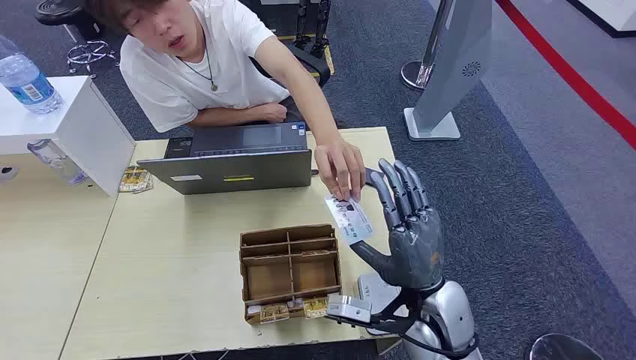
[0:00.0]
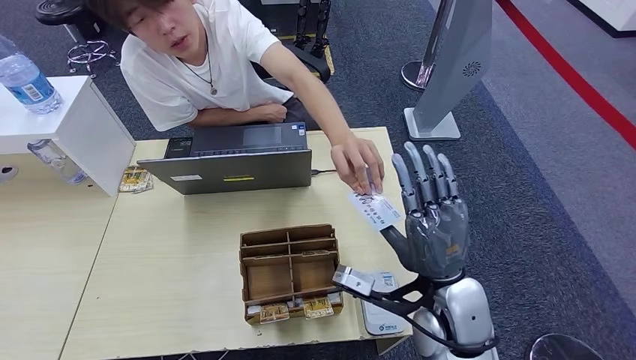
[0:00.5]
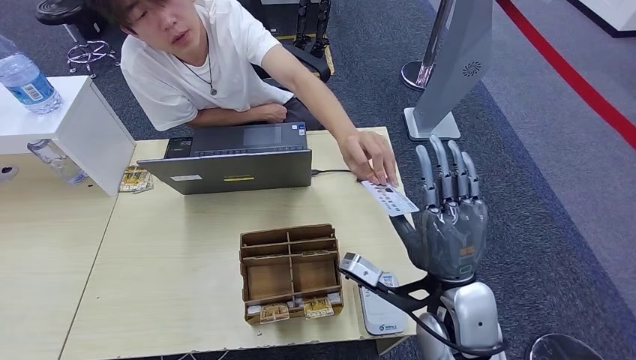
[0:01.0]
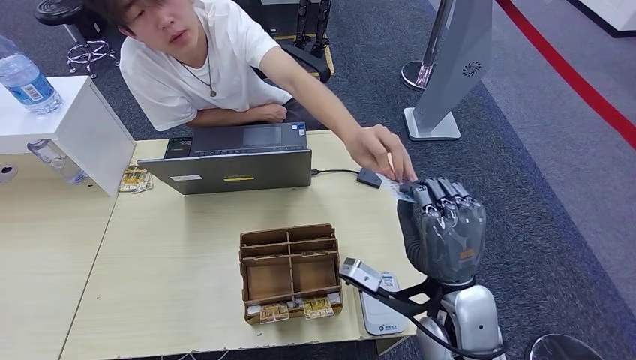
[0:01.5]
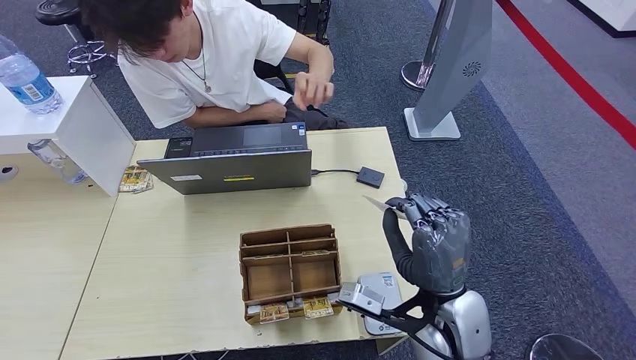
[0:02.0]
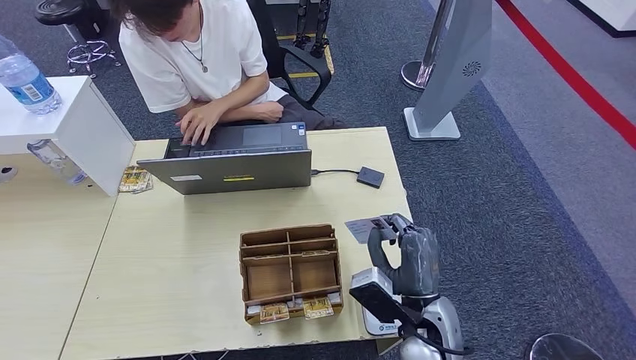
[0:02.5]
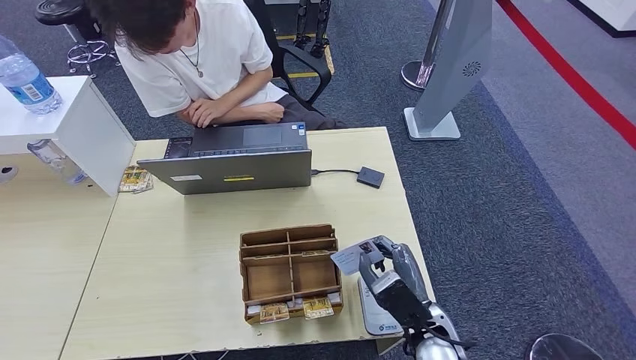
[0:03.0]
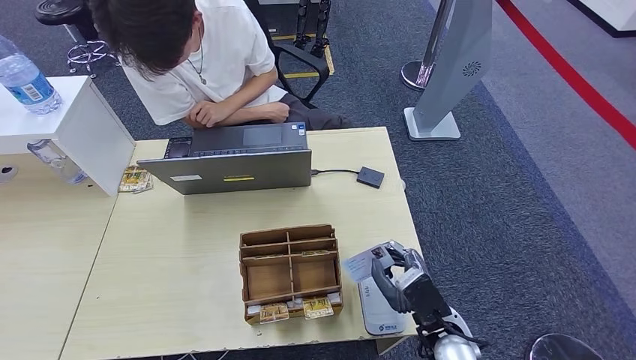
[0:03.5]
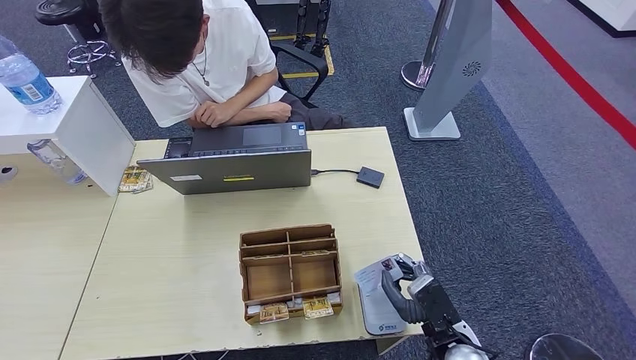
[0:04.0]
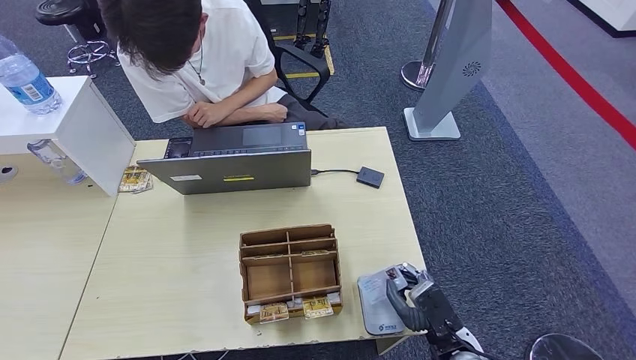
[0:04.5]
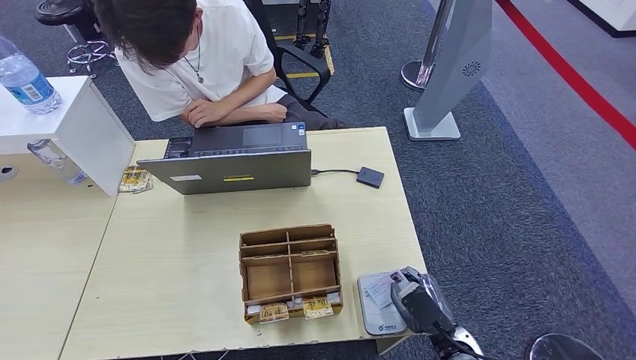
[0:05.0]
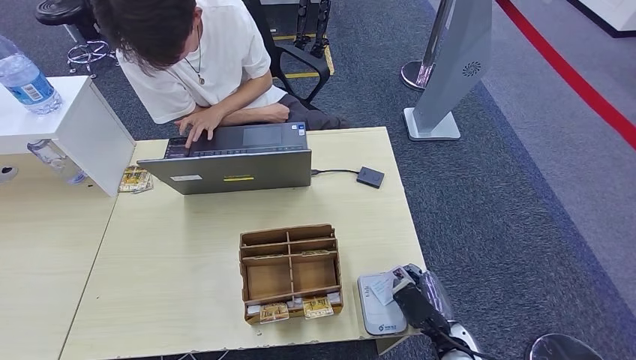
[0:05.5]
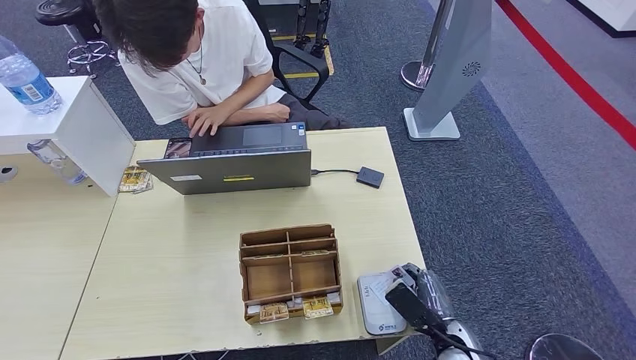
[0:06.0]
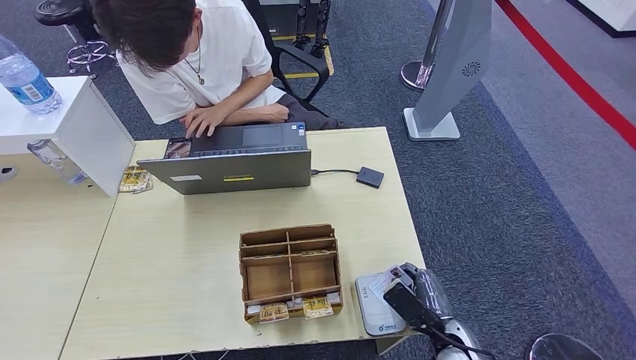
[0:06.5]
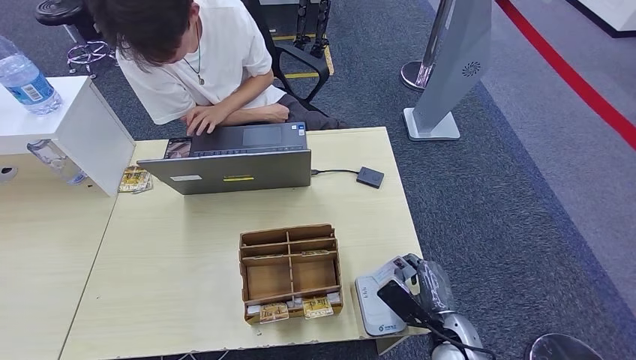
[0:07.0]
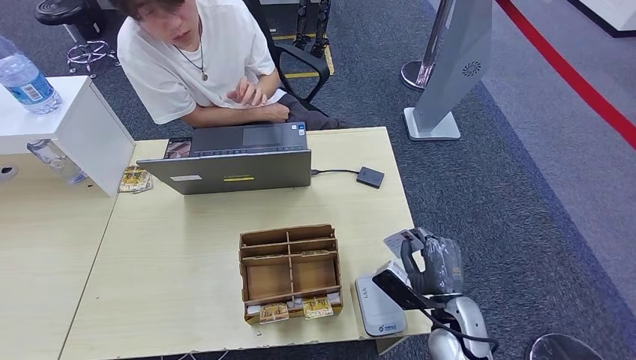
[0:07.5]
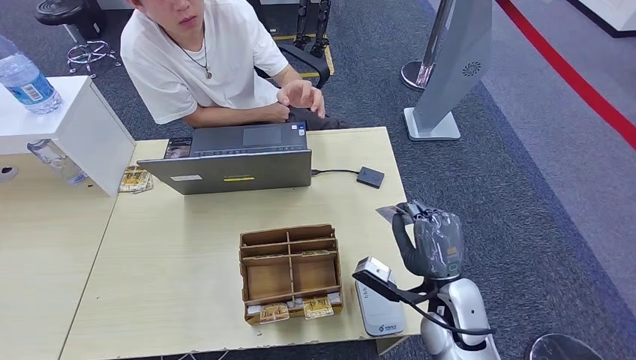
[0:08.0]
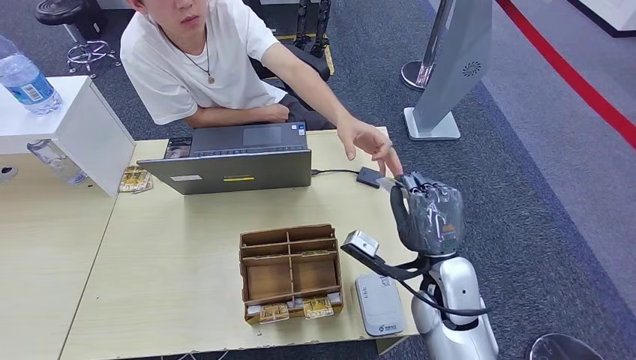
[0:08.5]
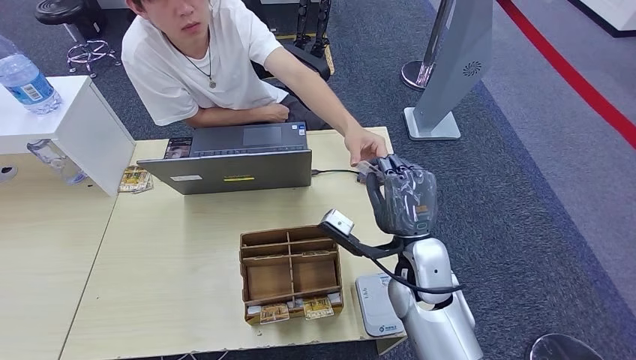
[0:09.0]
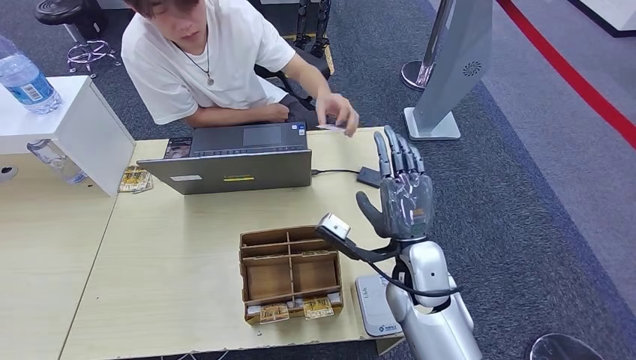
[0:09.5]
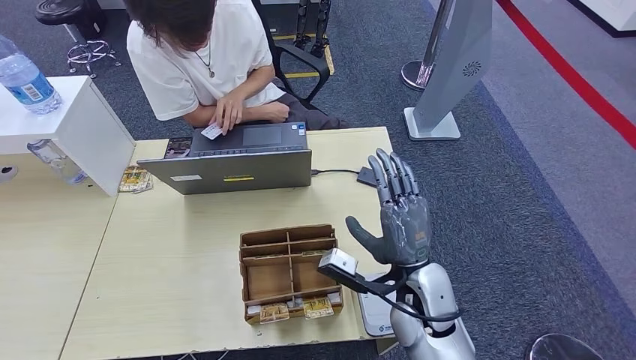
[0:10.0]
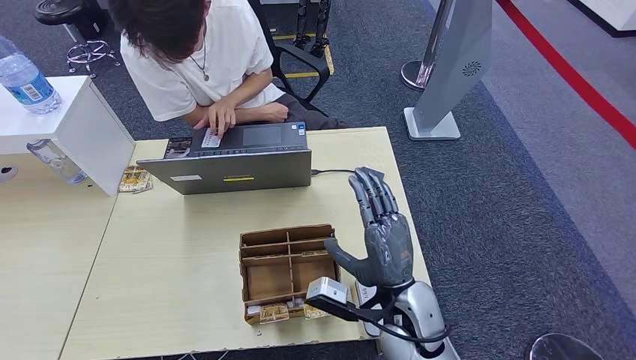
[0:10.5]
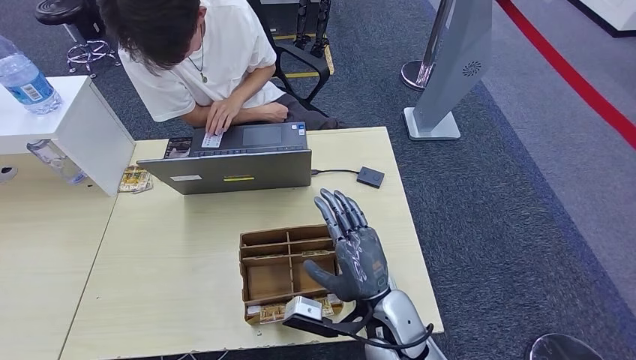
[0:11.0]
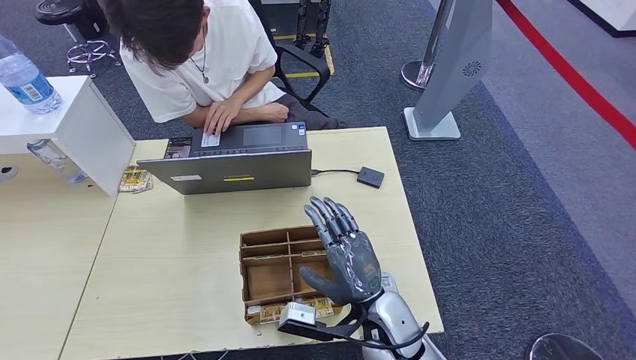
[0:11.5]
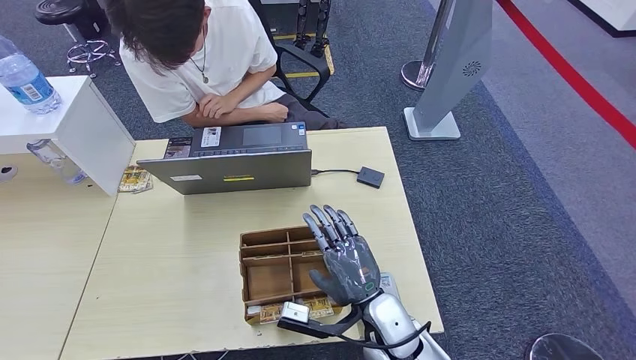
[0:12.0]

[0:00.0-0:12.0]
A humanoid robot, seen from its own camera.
Step, 0:00.0 to 0:01.5: Take the ID card from the person's hand.
Step, 0:02.0 to 0:04.5: Place the ID card on the card reader.
Step, 0:05.0 to 0:10.0: Hand the ID card to the person.
0:02.0 to 0:04.0: The right hand is displaced downward by some 15 cm.
0:06.0 to 0:08.0: The right hand heads upward and forward, covering about 10 cm.
0:08.0 to 0:10.0: The right hand shifts approximately 5 cm to the left.
0:10.0 to 0:12.0: The right hand travels downward by roughly 5 cm.

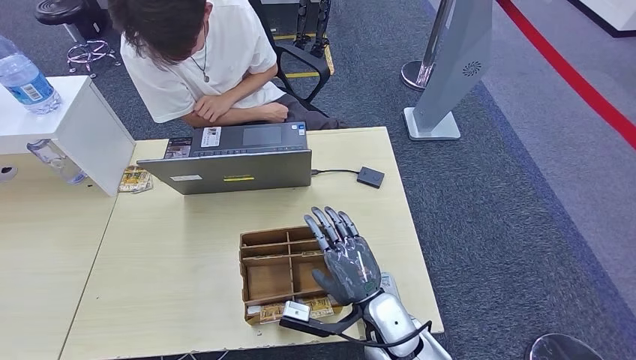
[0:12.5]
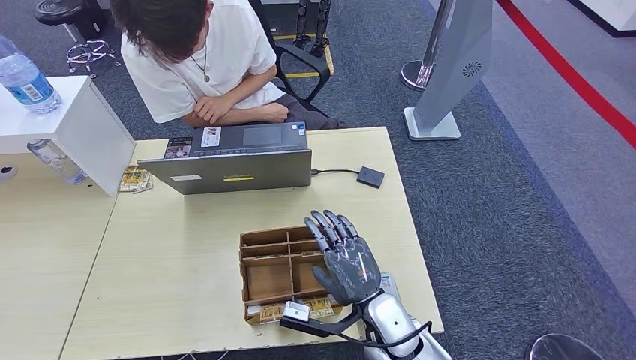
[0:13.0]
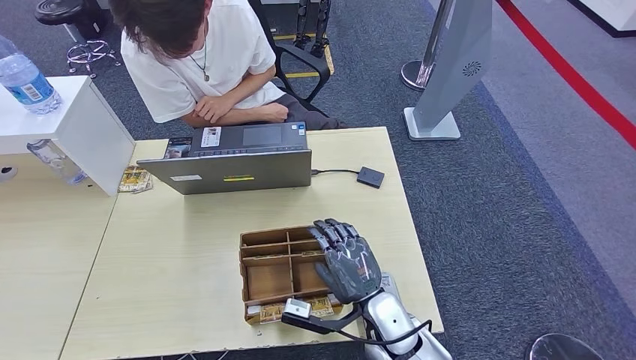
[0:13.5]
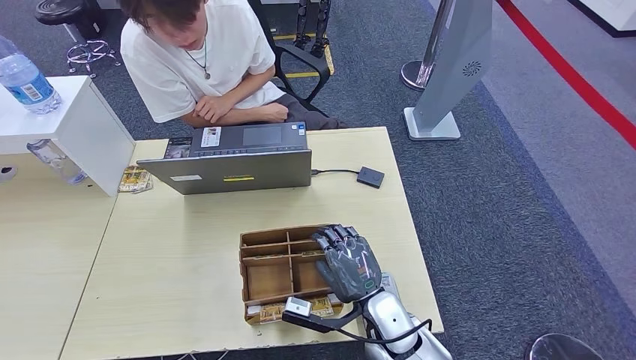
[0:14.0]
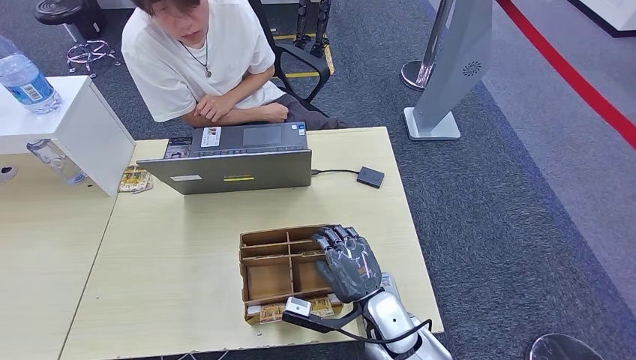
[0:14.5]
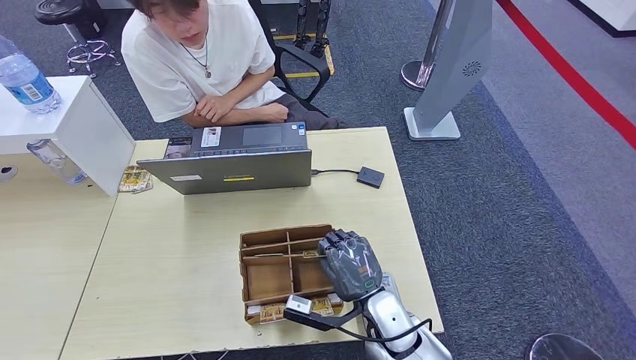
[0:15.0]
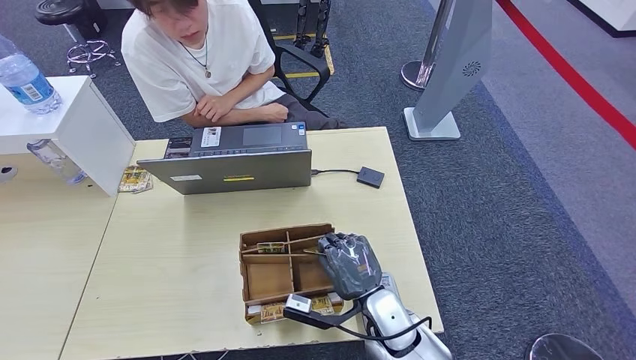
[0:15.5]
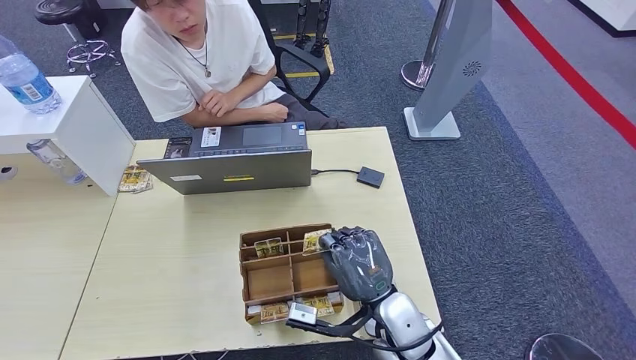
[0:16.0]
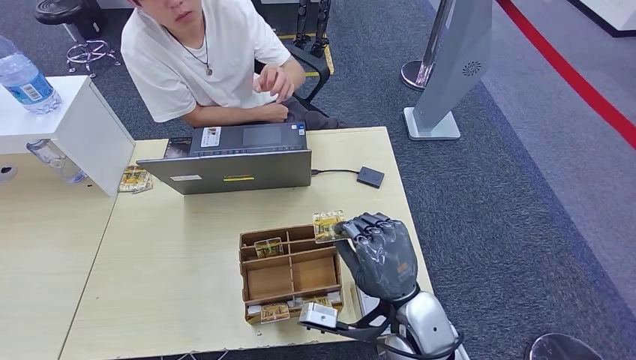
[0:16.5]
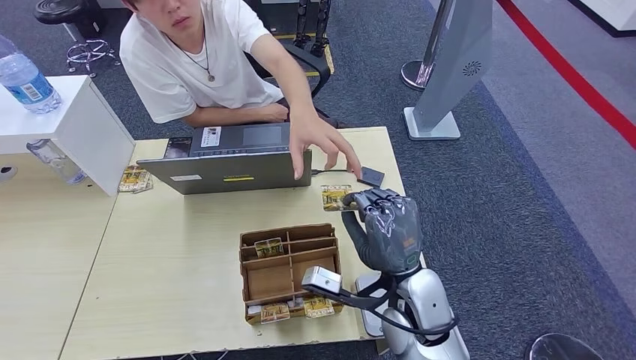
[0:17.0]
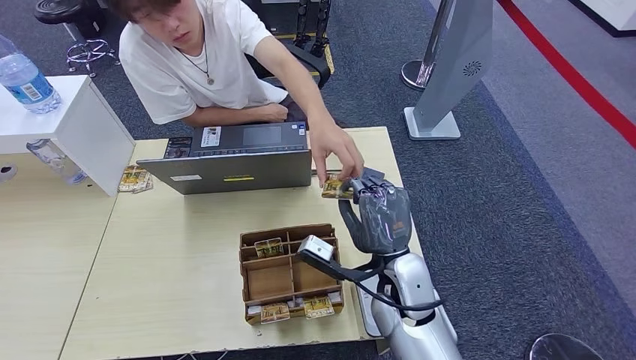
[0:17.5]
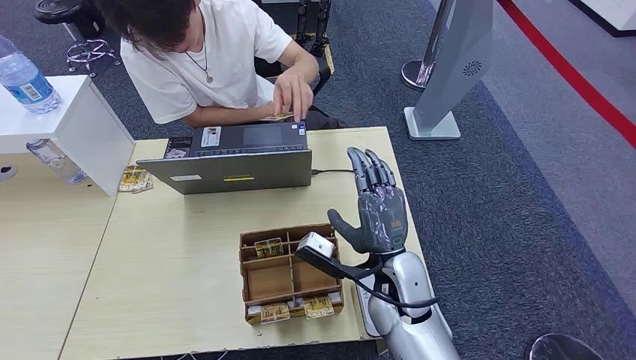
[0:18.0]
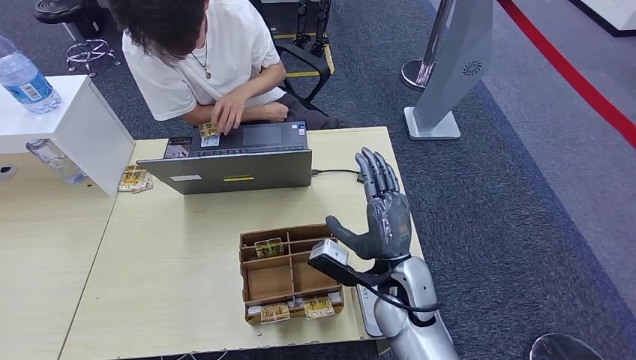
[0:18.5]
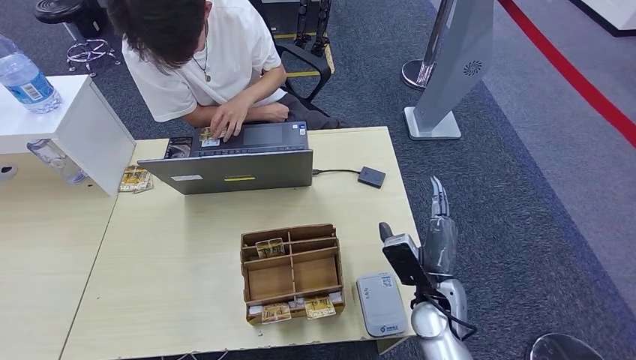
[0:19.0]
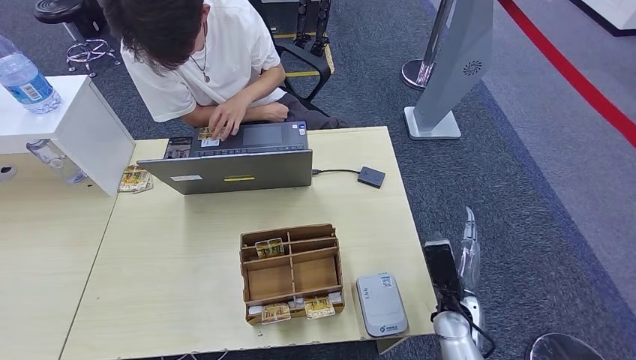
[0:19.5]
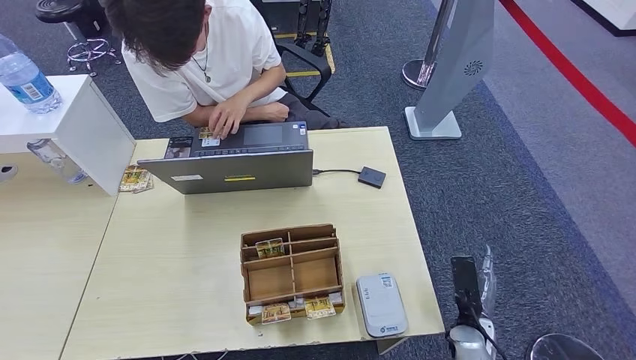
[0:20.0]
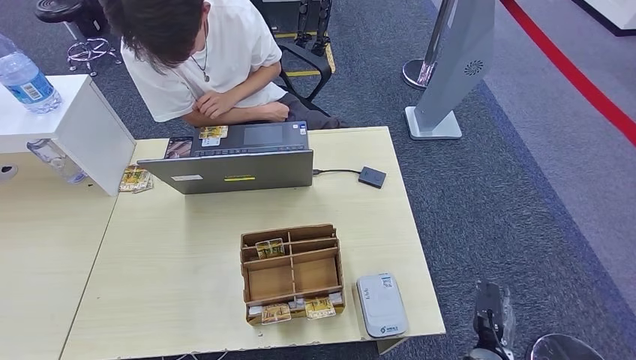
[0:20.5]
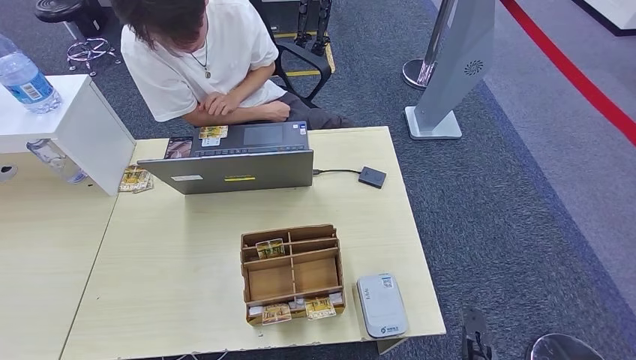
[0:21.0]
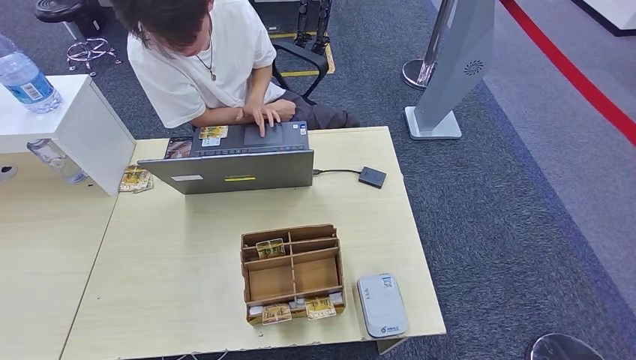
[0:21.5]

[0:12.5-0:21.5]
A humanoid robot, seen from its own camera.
Step, 0:12.5 to 0:16.5: Pick up the room key from the key card box.
Step, 0:17.0 to 0:21.5: Hand the room key to the person.
0:12.5 to 0:14.5: The two hands keep their place.
0:14.5 to 0:17.0: The right hand travels upward by approximately 10 cm.
0:17.0 to 0:19.5: The right hand is displaced downward and to the right by some 20 cm.
0:19.5 to 0:21.5: The right hand moves backward and downward, about 25 cm.
